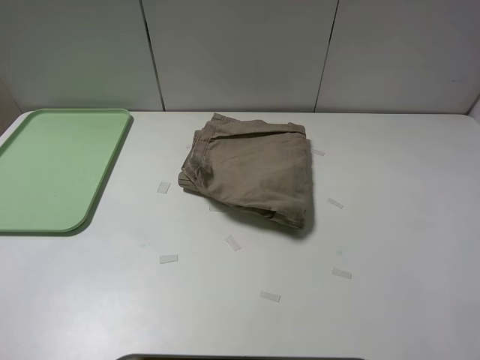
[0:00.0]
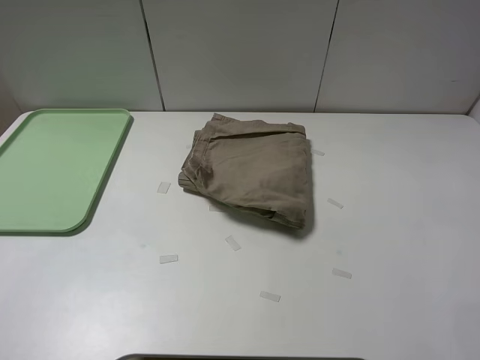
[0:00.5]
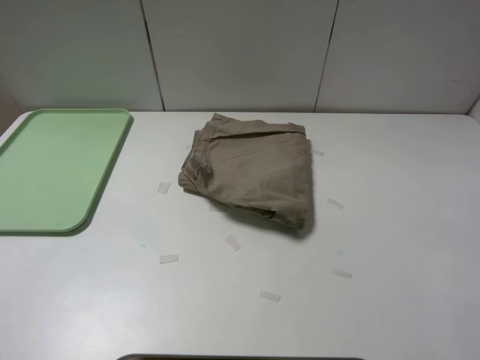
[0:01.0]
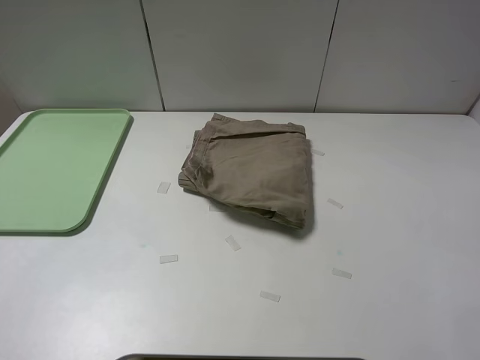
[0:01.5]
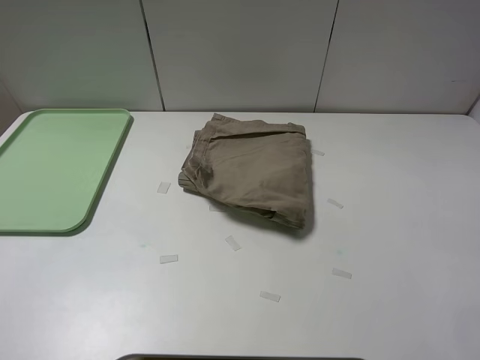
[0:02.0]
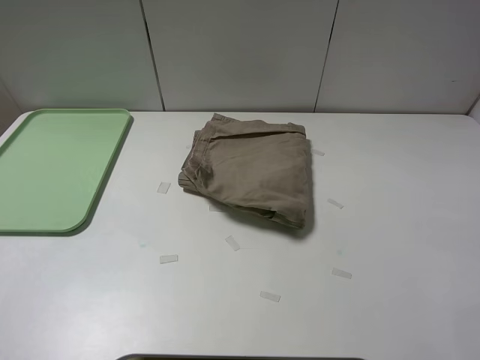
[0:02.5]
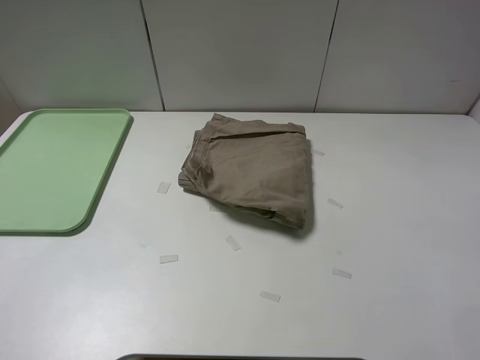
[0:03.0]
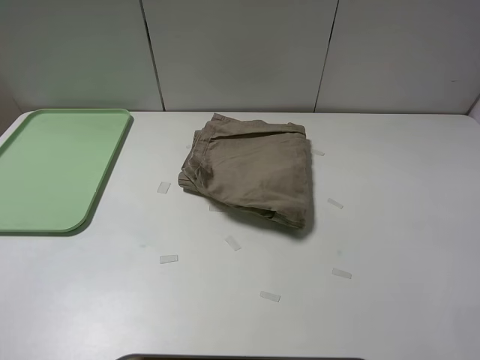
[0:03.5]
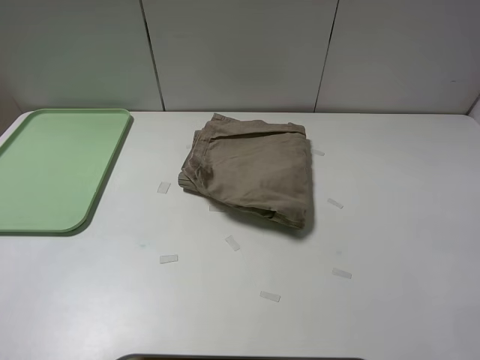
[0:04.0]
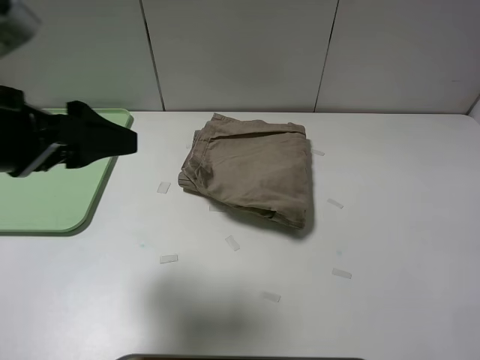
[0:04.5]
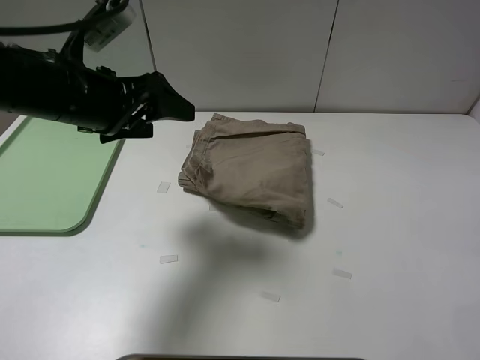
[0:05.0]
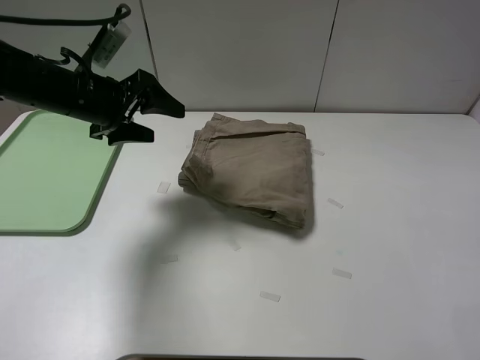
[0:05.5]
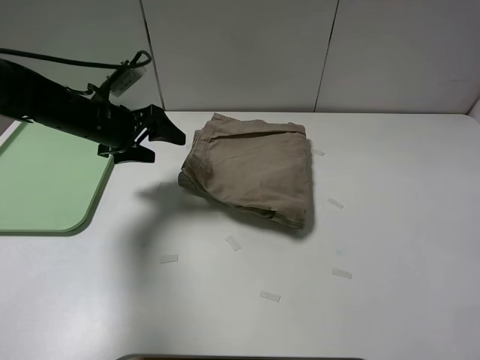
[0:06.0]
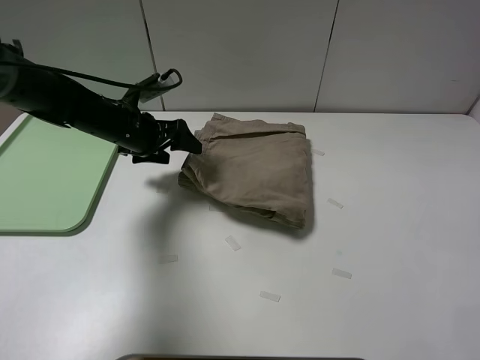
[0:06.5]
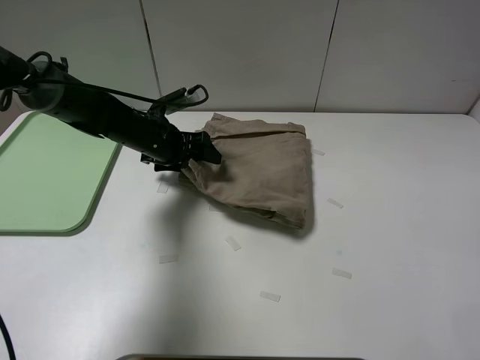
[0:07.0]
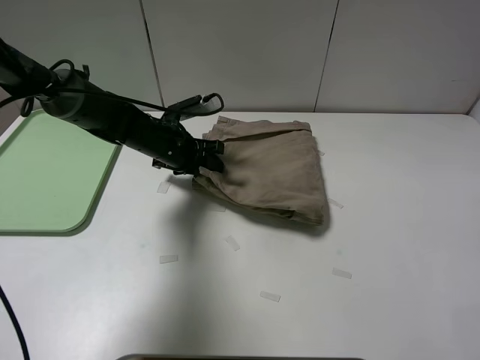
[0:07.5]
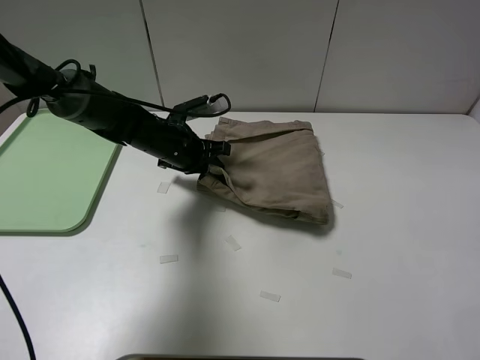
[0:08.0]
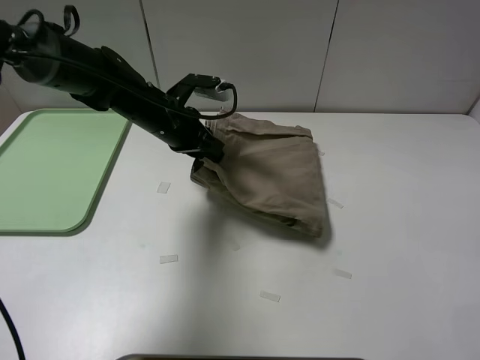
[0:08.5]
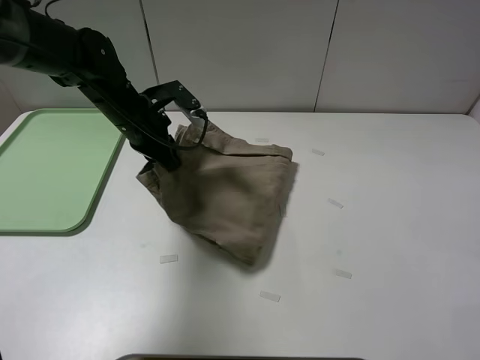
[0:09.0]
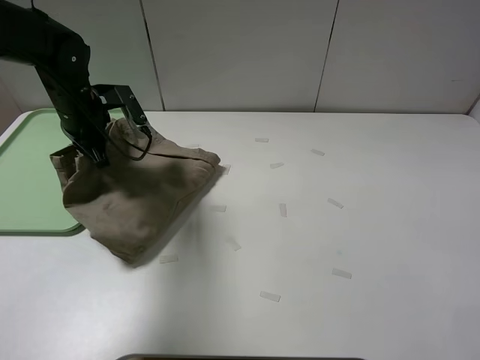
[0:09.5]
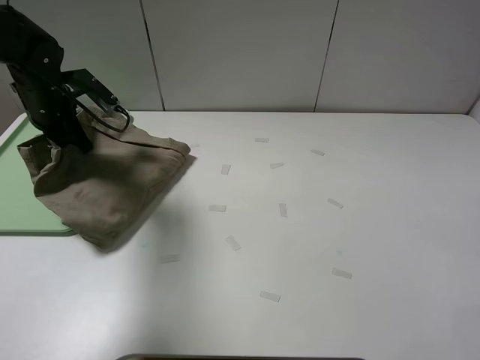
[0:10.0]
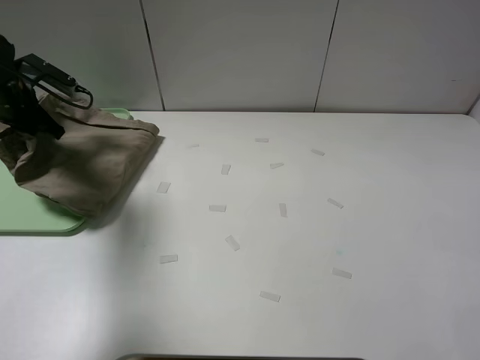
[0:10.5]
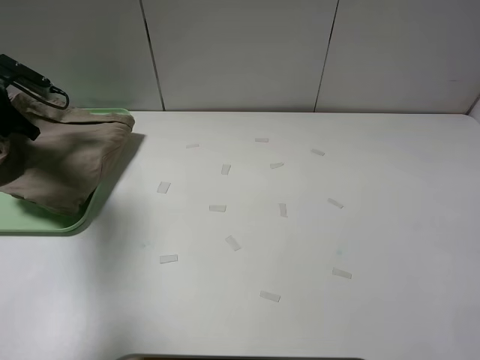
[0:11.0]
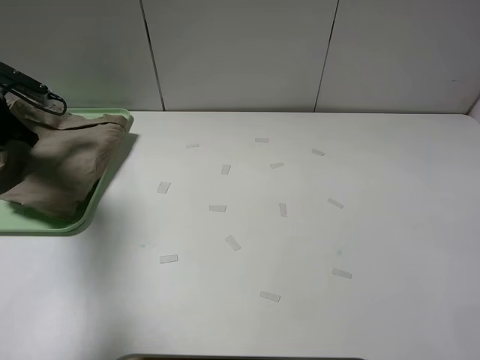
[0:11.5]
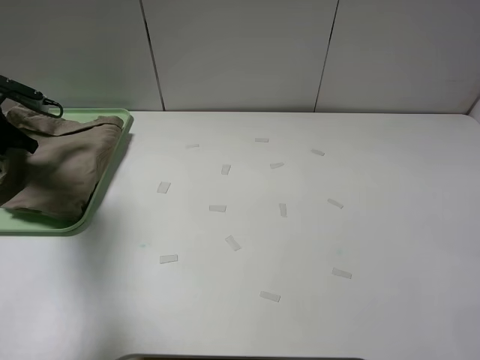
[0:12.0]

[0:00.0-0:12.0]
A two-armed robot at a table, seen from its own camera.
Task of the whole recording: fold the khaki jeans in half with two grippers, then fold them in half again, and use the left claw to place the folded fold khaki jeans on the tray.
Step, 0:00.0 to 0:07.5: Grasp the khaki trousers with the left gripper.
0:04.0 to 0:06.0: The left gripper goes some 35 cm forward and downward.
0:06.0 to 0:08.0: The left gripper is displaced to the right and downward by some 10 cm, and closes.
0:08.0 to 0:10.0: The left gripper is displaced to the left and upward by some 20 cm.
0:10.0 to 0:12.0: The left gripper travels to the left by about 10 cm.

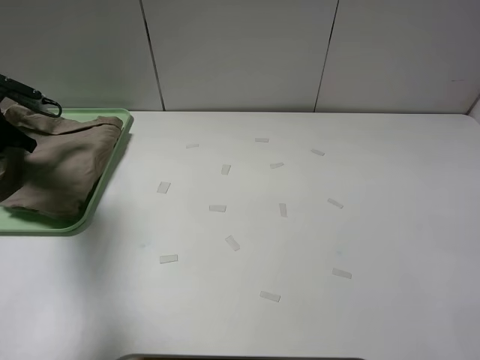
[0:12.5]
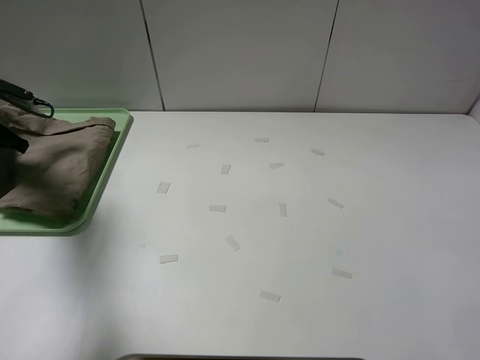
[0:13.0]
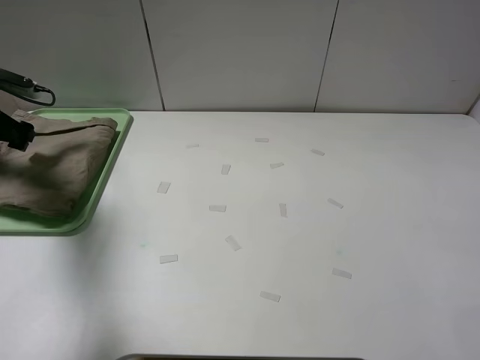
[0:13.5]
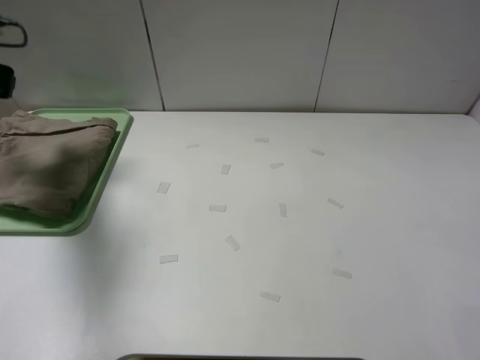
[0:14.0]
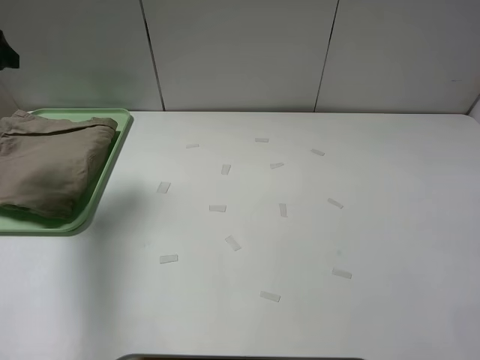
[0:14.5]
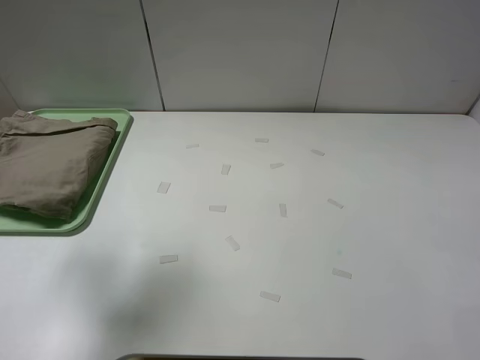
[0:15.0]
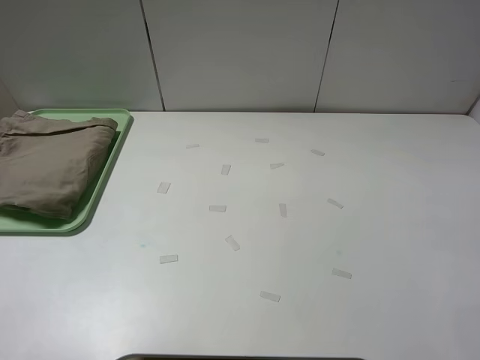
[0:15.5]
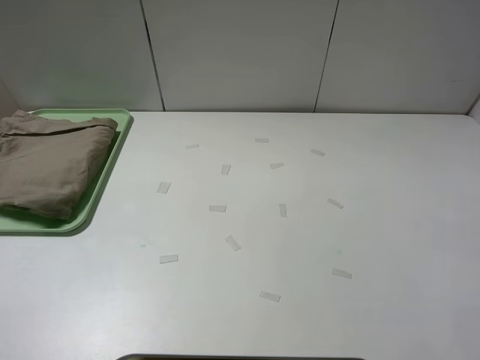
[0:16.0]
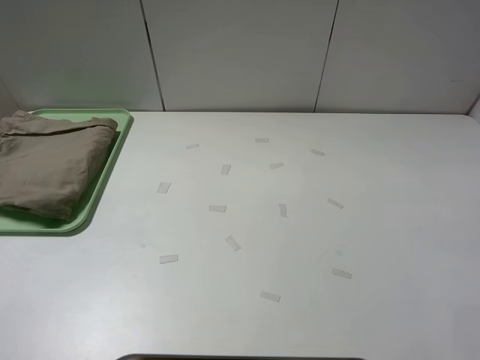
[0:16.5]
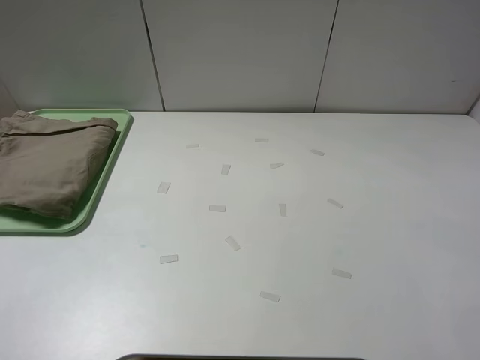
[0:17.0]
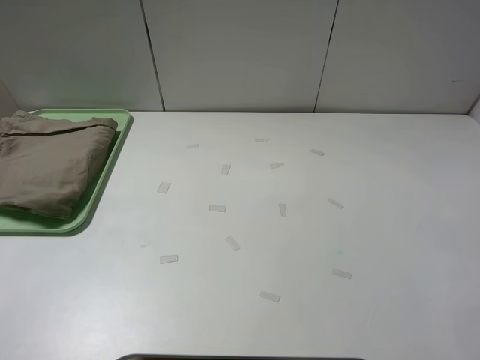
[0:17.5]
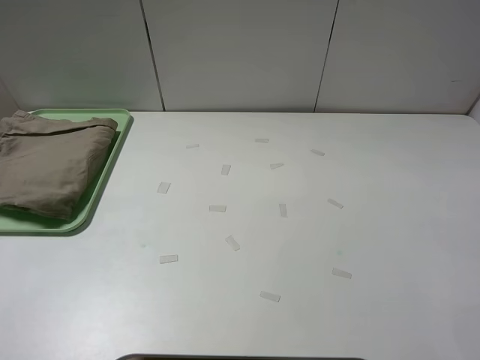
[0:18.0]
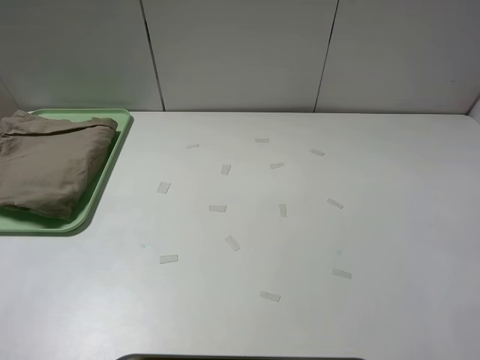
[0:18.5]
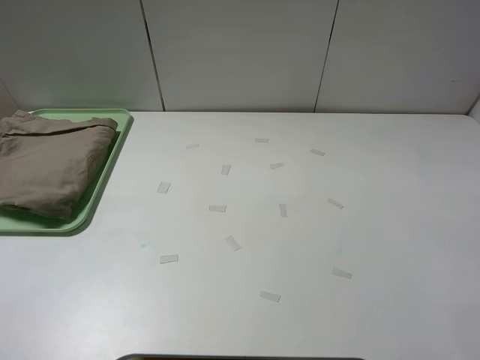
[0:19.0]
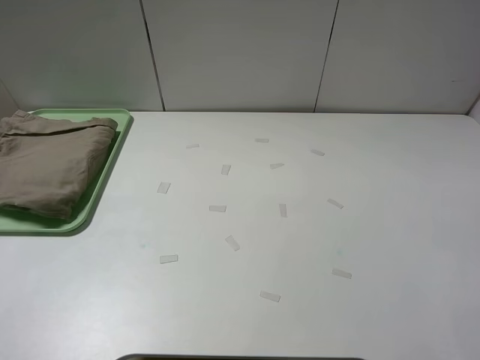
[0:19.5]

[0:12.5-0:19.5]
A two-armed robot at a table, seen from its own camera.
Task of the whole recording: fold the khaki jeans in half with two grippers, then fold them in half again, and use the left claw to place the folded fold khaki jeans on the tray.
0:12.5 to 0:14.5: The left gripper is displaced upward and backward by about 15 cm, and opens up.
0:14.5 to 0:16.0: The left gripper is displaced backward by approximately 35 cm.
0:17.5 to 0:19.5: Both grippers stay put.
